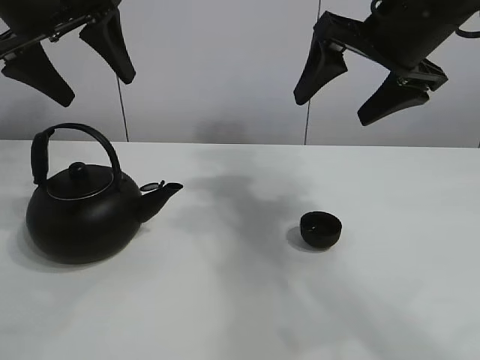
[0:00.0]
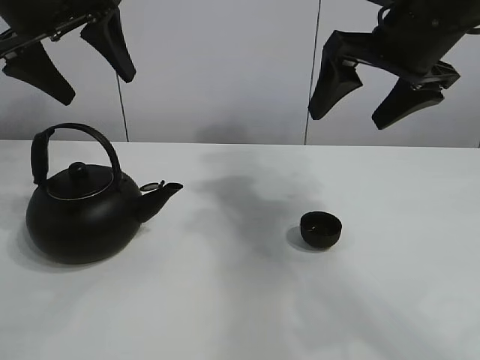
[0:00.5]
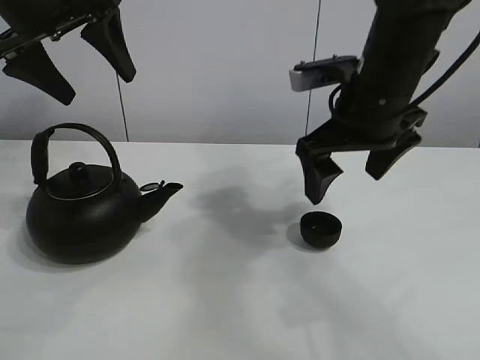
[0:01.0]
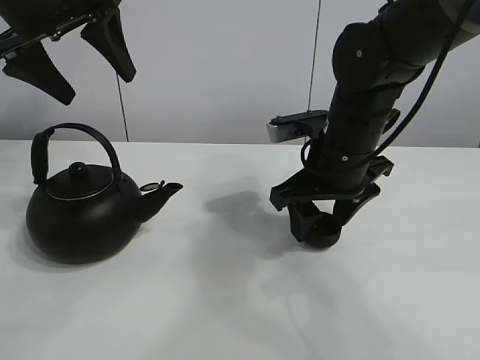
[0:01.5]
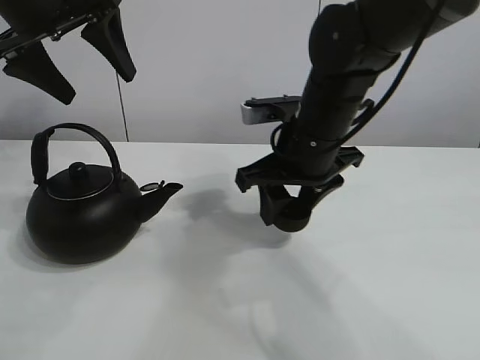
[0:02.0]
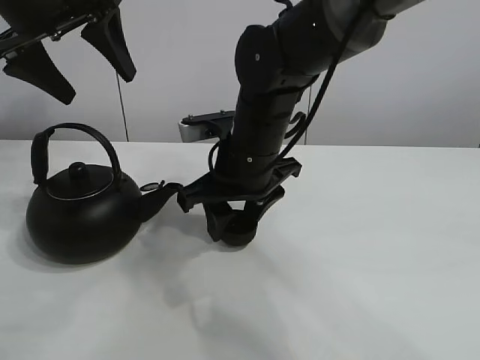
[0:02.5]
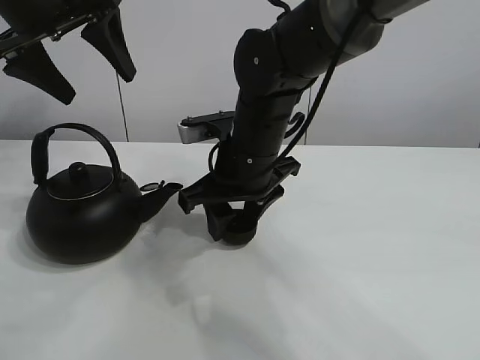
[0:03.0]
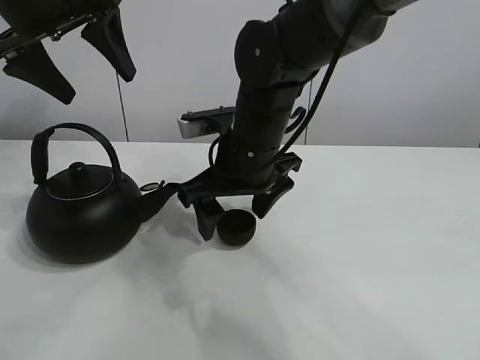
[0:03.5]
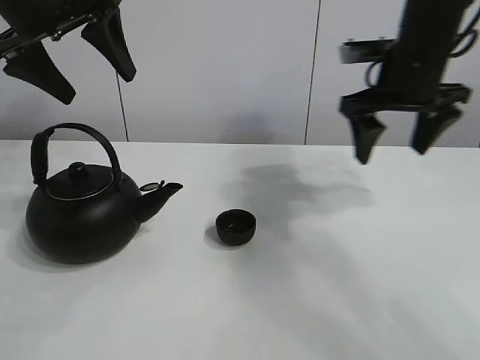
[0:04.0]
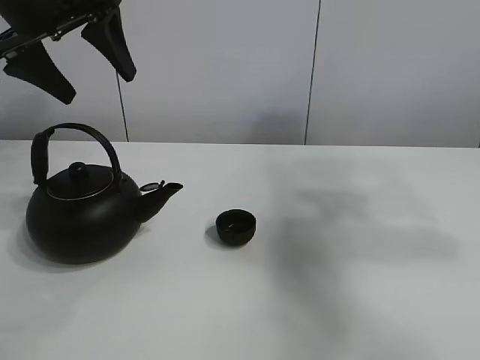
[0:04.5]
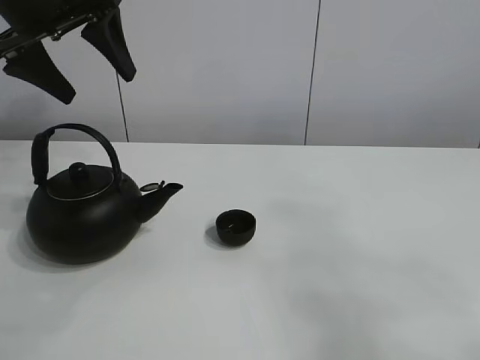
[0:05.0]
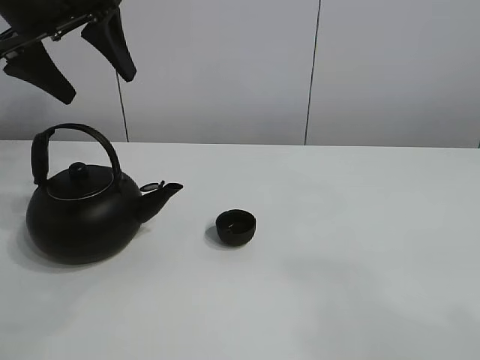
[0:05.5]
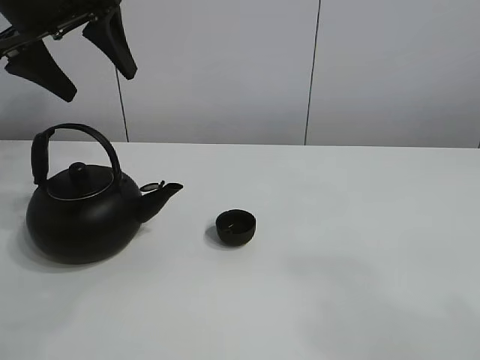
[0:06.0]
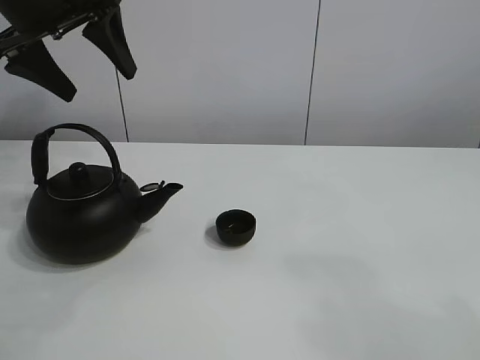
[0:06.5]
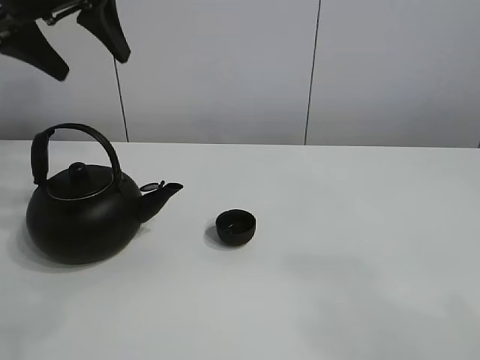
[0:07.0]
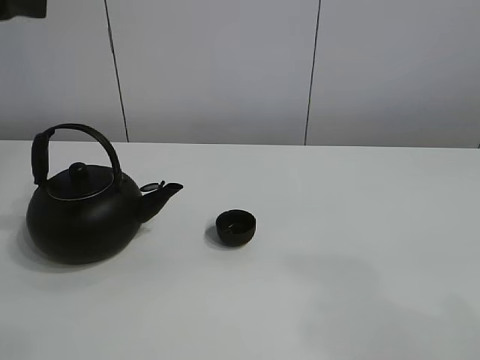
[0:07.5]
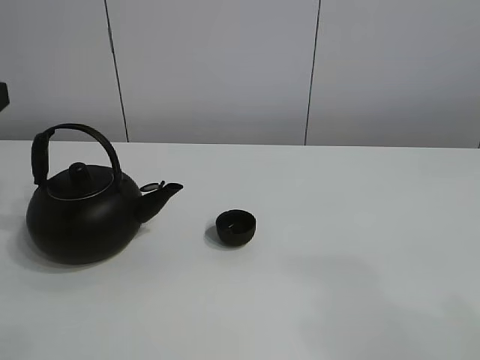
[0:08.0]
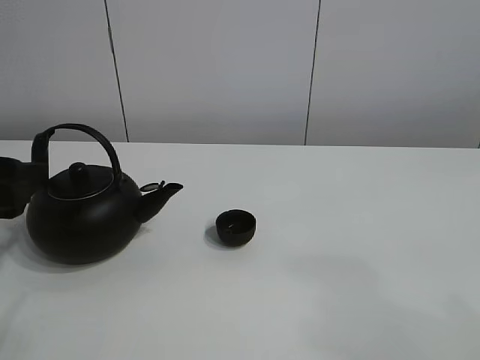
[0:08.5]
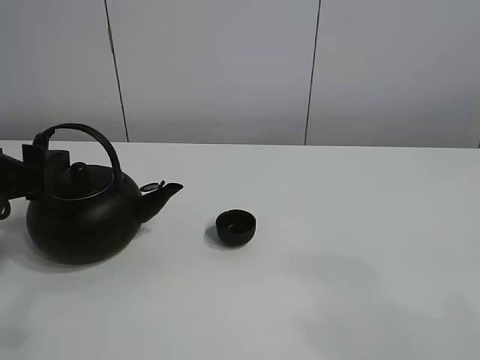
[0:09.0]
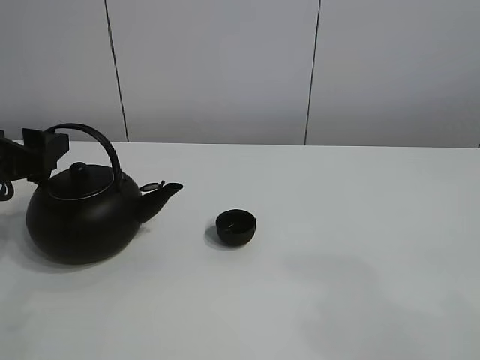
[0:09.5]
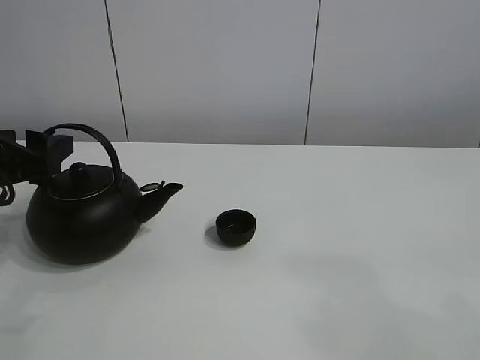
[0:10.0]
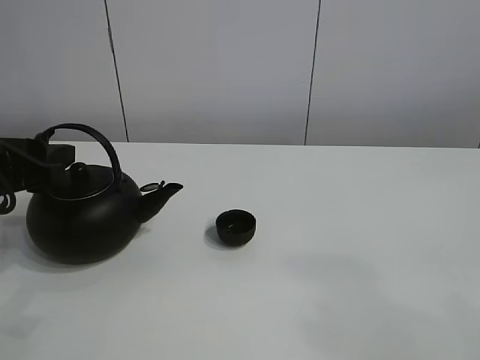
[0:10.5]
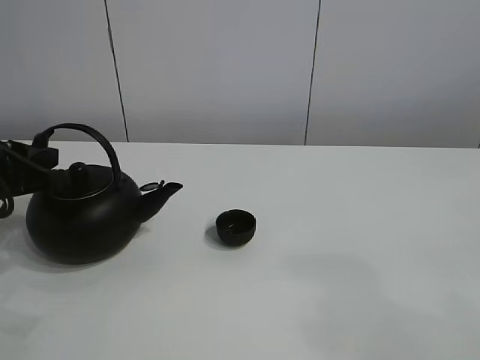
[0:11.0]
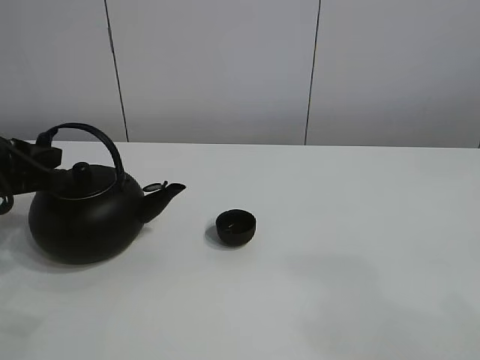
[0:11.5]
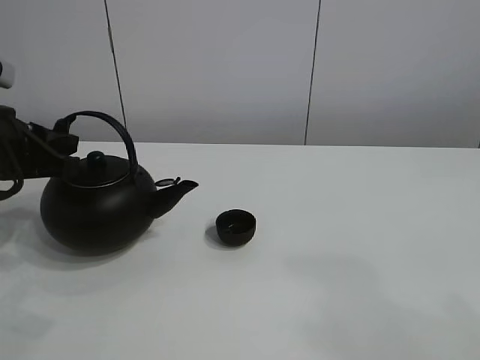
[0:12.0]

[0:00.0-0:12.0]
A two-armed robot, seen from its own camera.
Task of the whole recording: pour tea into the teacup.
Step, 0:00.0 to 0:01.5: Pick up the teacup with the right gripper.
Step, 0:02.0 to 0:03.0: Place the teacup in the center of view with the right gripper.
Step, 0:03.5 to 0:11.5: Pick up the teapot with the left gripper.
0:02.0 to 0:04.0: The right gripper goes roughly 10 cm to the right and upward, and opens up.
0:04.0 to 0:06.0: The right gripper is displaced backward by some 40 cm.
0:06.0 to 0:08.0: The left gripper travels backward and downward by some 20 cm.
0:08.0 to 0:10.0: The left gripper moves forward and downward, some 10 cm.
0:10.0 to 0:12.0: The left gripper closes.

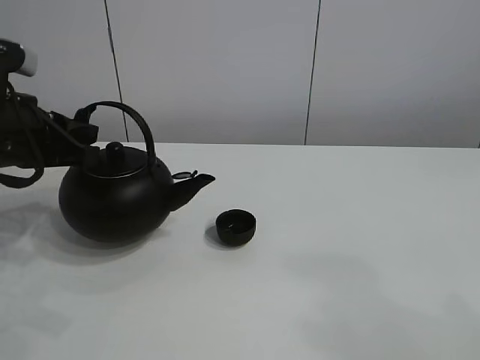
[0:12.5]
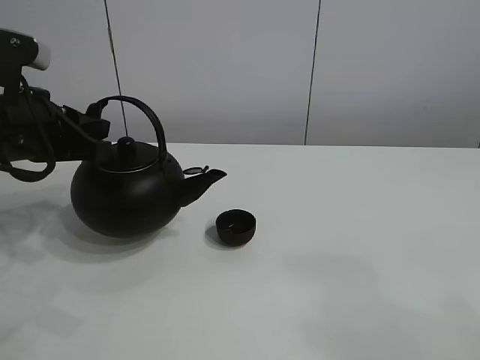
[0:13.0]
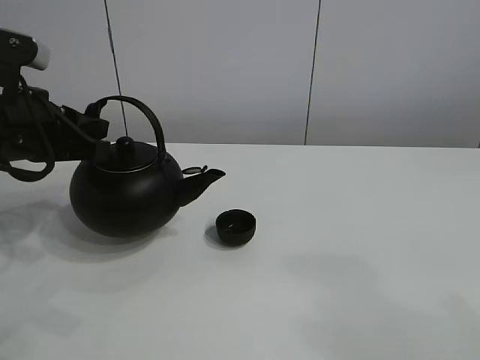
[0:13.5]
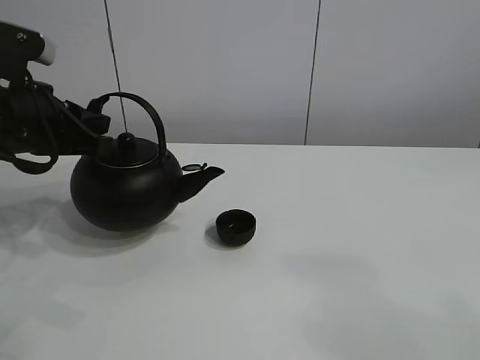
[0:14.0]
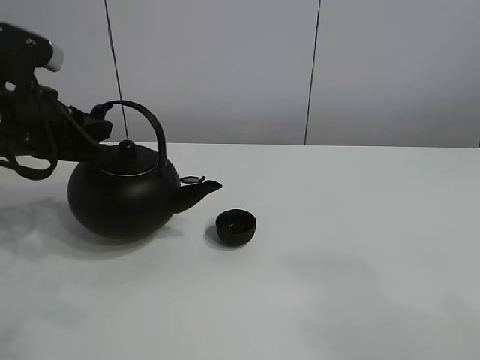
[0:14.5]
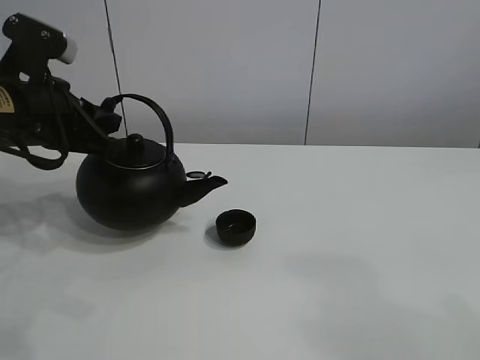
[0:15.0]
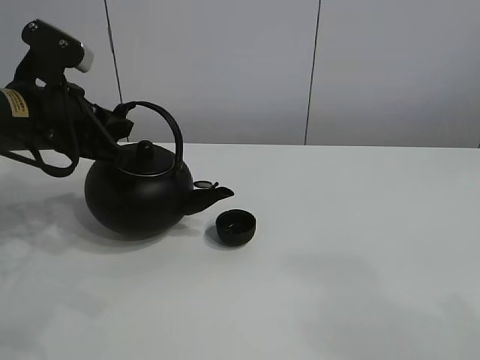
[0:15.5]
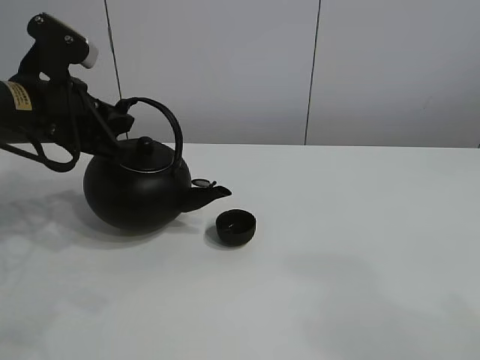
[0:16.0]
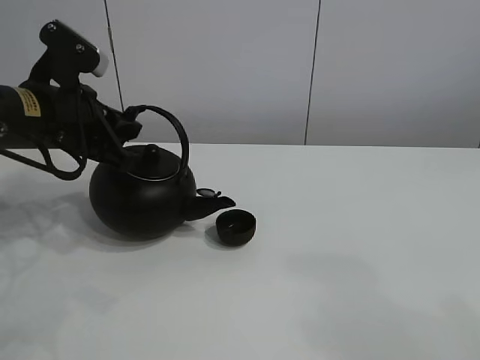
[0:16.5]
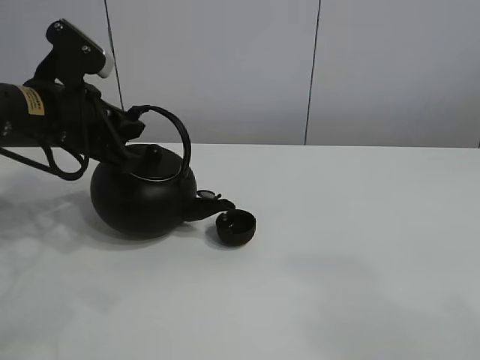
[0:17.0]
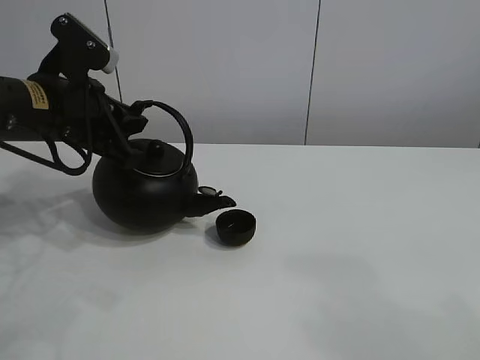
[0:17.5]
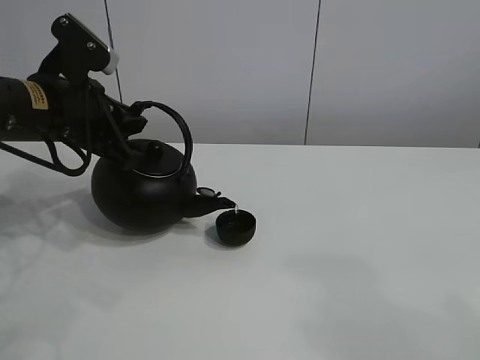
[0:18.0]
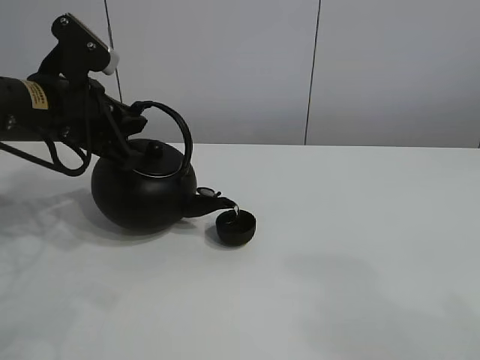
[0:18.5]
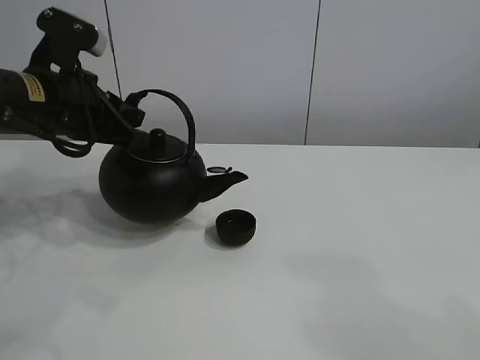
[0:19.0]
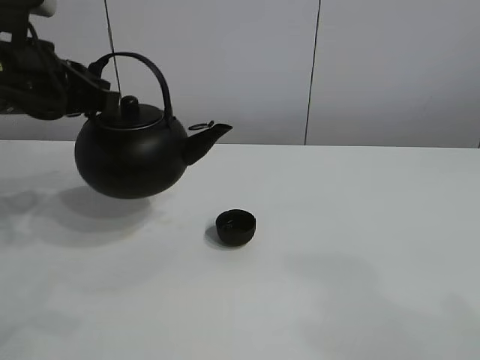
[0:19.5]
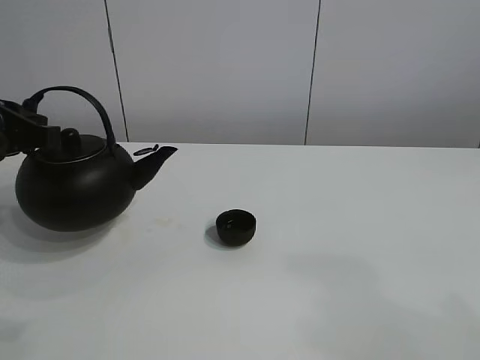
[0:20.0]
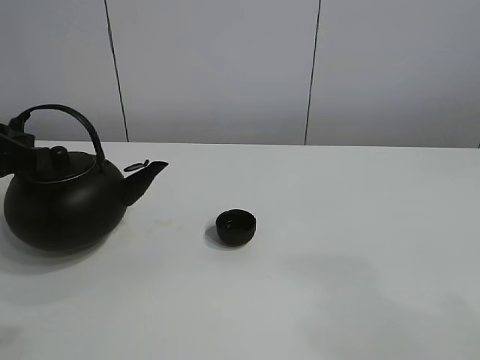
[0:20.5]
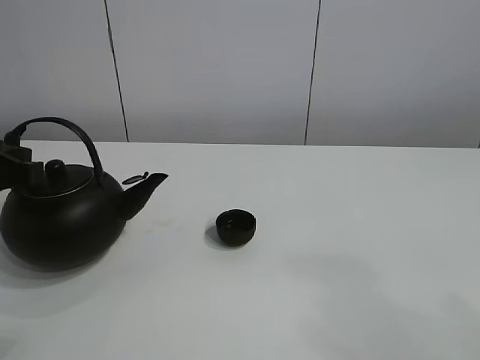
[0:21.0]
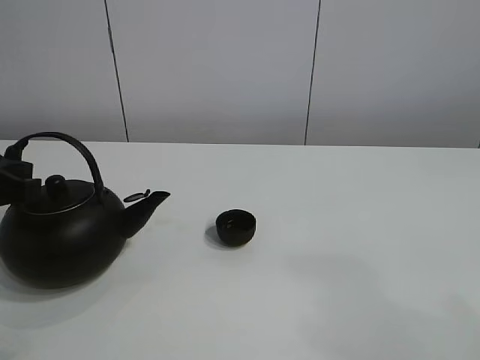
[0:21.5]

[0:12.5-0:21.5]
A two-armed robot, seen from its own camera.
Task of the whole recording: pour tea into the teacup.
Step, 0:12.5 to 0:18.5: Pour tea into the teacup with the left gripper.
0:12.5 to 0:17.0: The grippers make only small movements.
0:19.5 to 0:21.5: The left gripper heads backward, downward and to the left, covering approximately 10 cm.

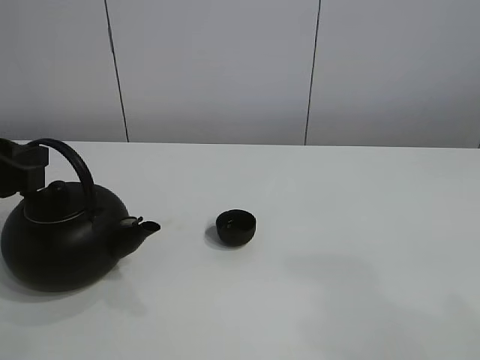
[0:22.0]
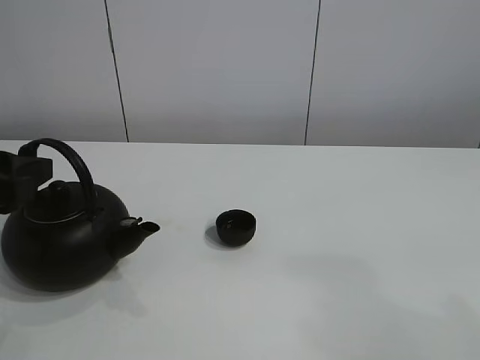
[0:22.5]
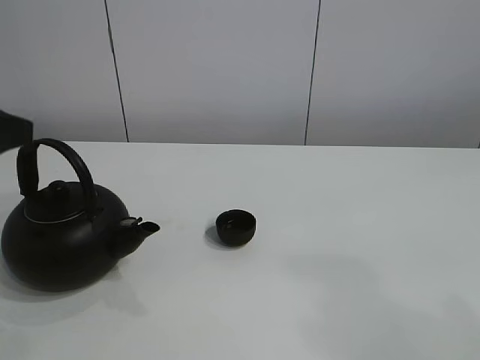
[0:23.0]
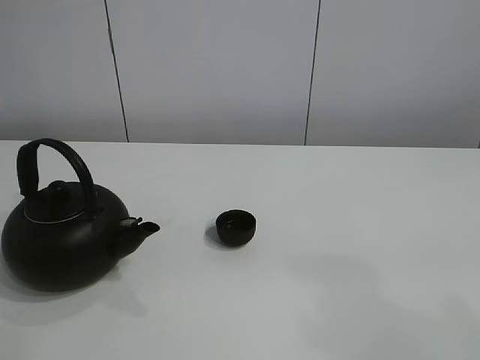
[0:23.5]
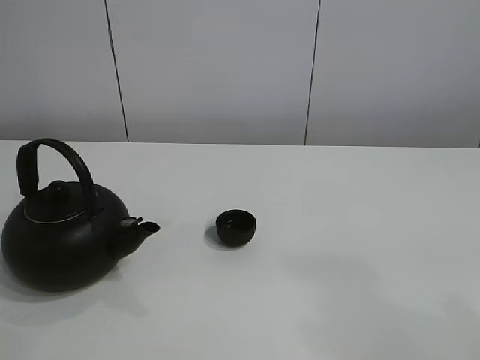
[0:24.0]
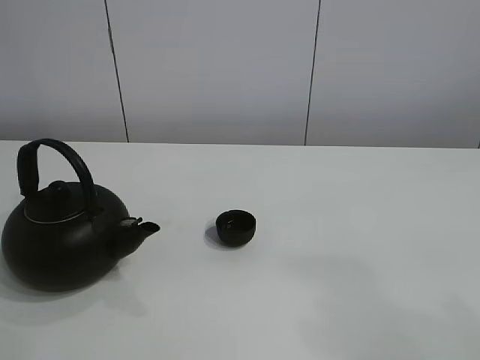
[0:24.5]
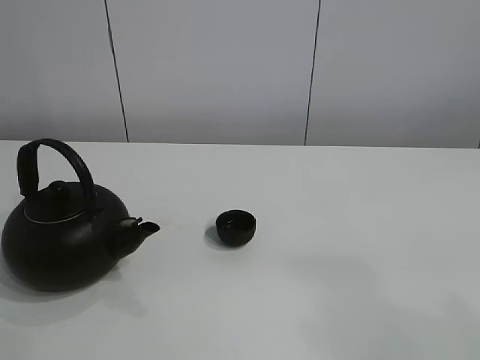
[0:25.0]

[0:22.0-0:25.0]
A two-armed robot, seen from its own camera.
Task of the whole recording: pour tea into the teacup.
0:22.0 to 0:23.5: The left gripper shifts approximately 20 cm upward, and opens up.
